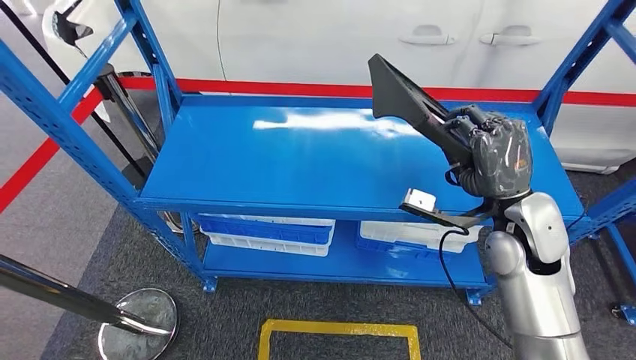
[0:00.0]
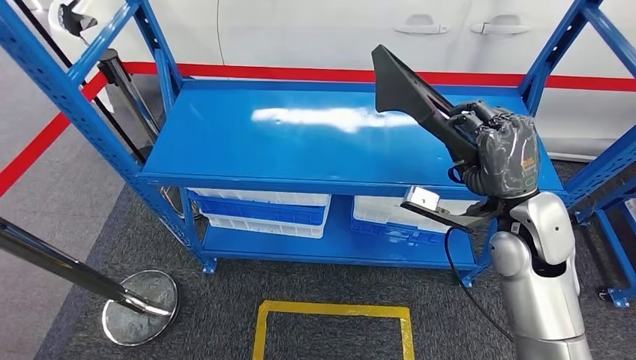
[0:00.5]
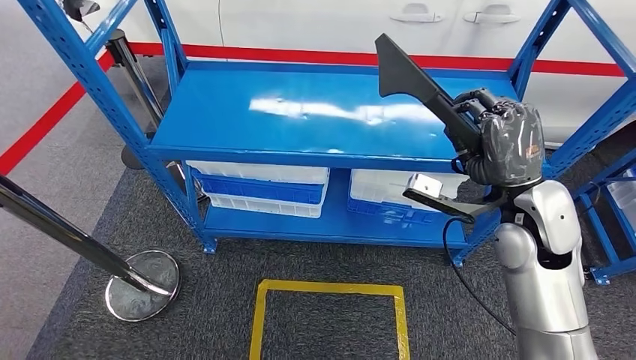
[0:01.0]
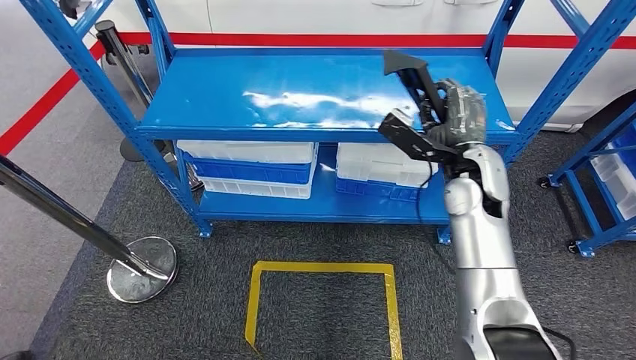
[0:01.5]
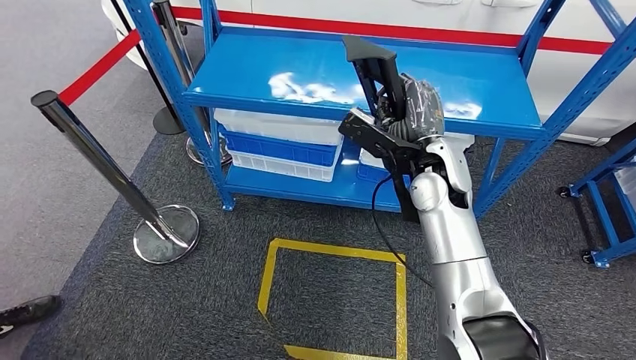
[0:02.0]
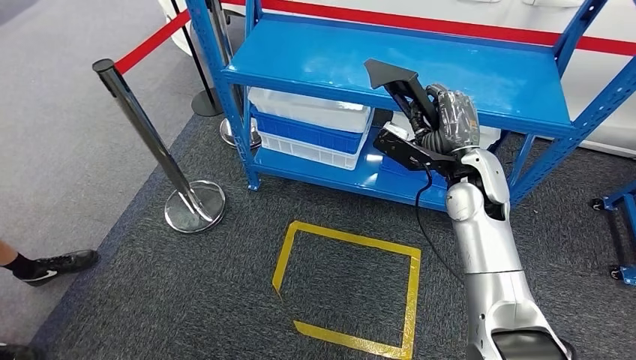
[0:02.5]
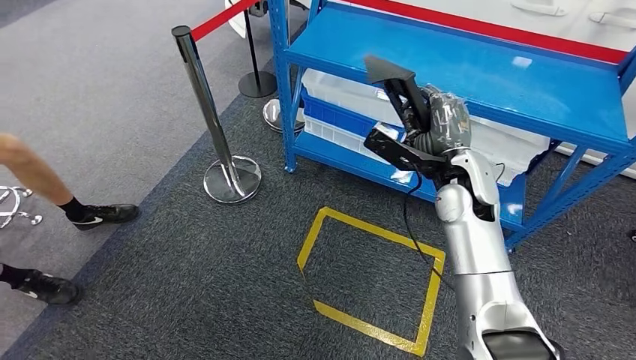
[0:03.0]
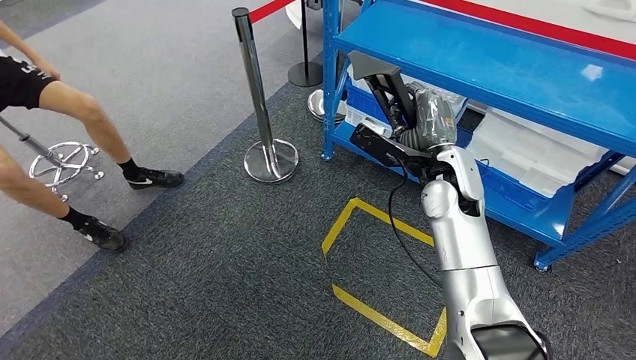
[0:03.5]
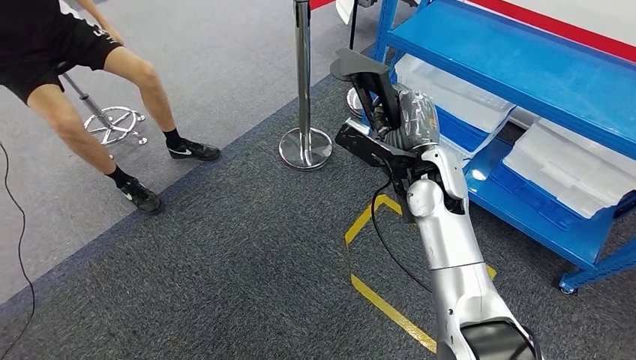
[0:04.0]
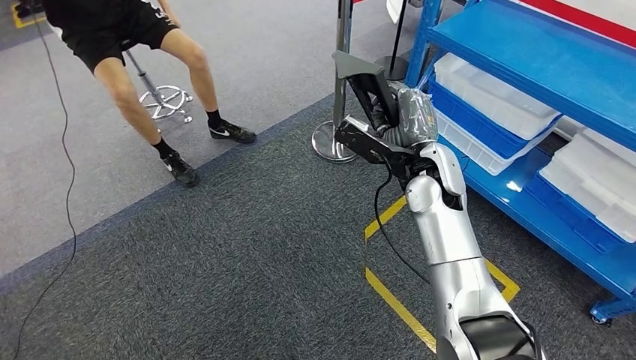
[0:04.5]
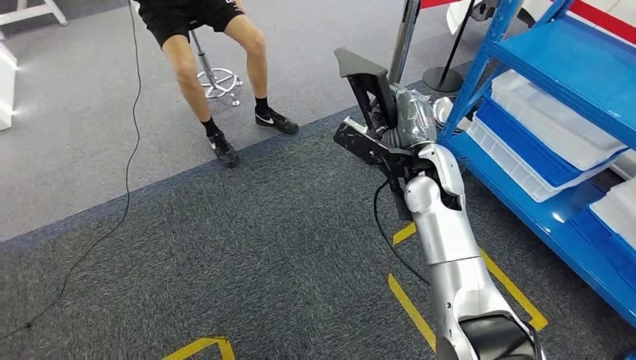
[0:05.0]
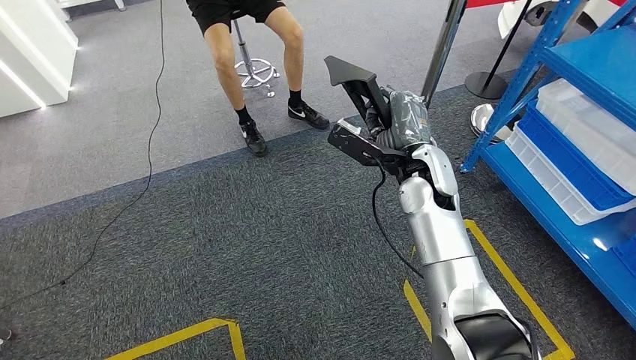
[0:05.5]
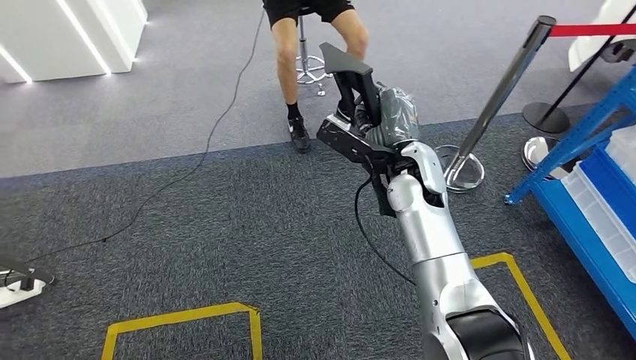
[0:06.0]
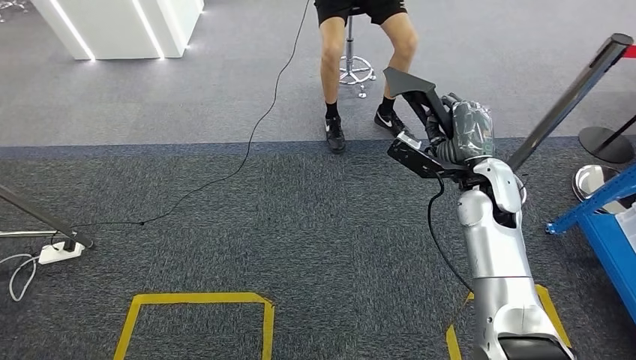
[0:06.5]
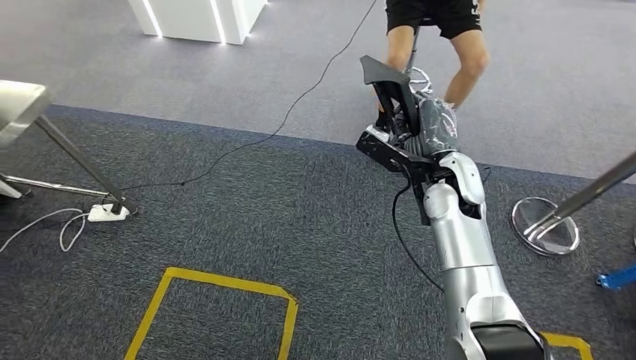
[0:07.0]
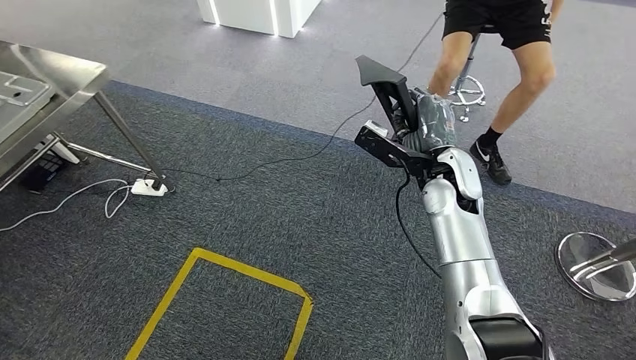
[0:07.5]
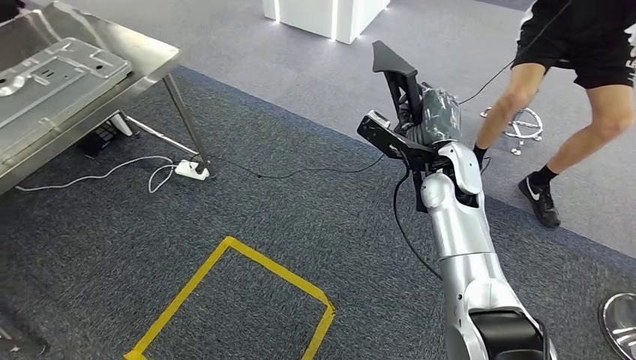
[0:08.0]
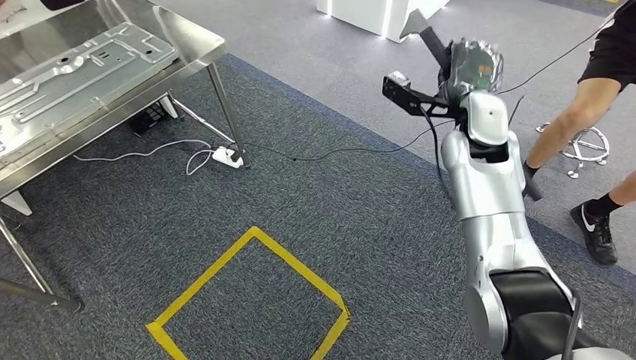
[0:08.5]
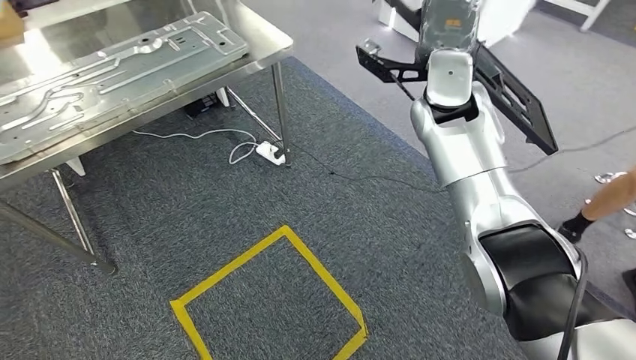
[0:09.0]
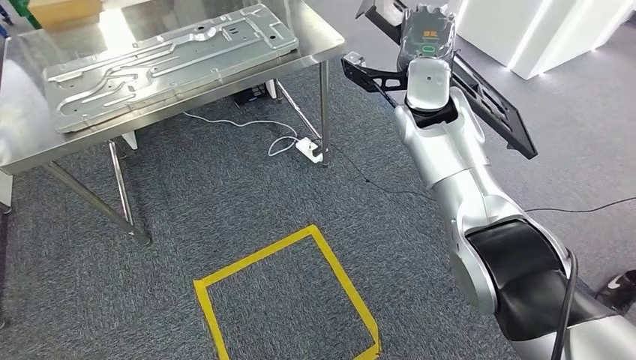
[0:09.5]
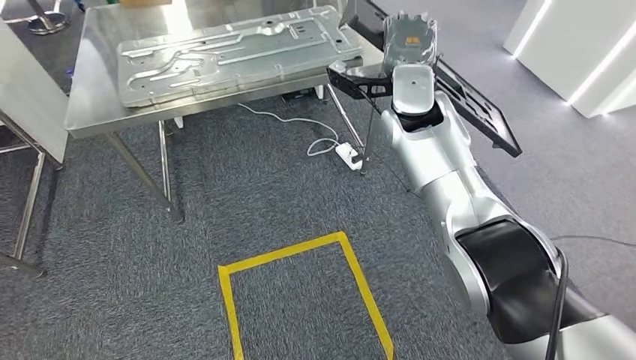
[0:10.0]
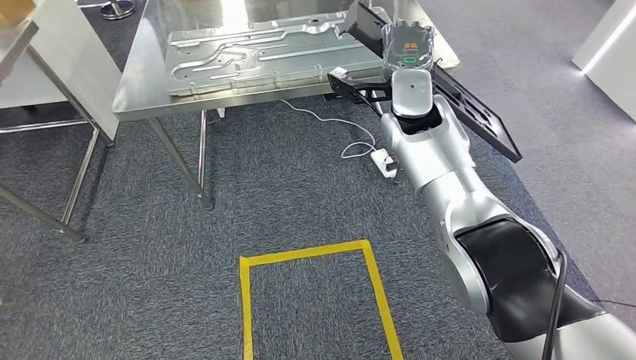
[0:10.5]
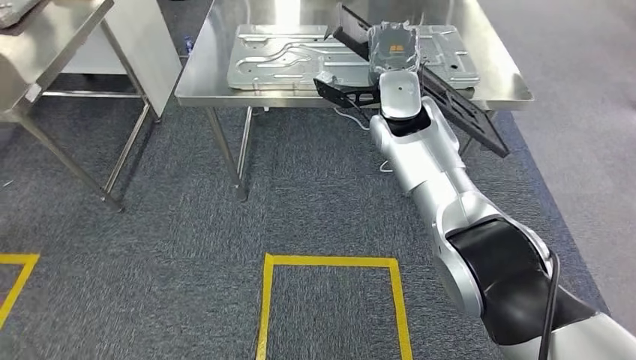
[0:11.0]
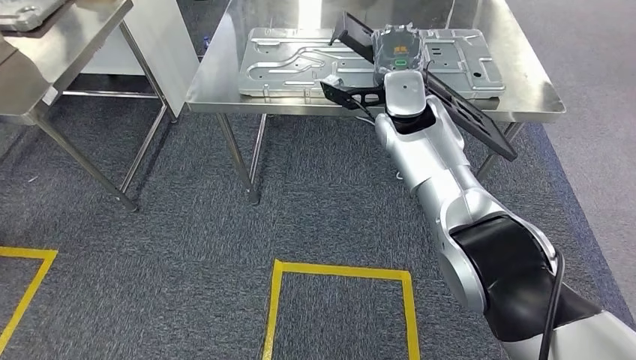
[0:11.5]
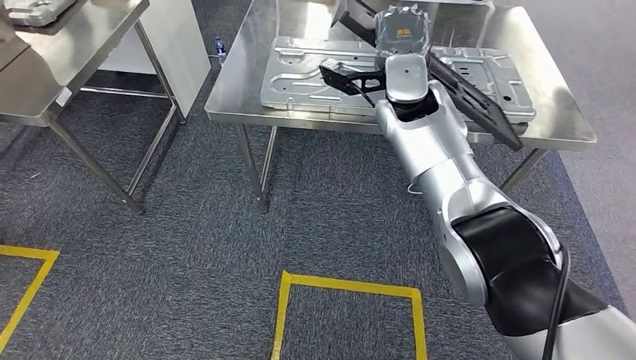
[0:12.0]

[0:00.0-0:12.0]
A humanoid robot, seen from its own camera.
Step, 0:00.0 to 0:02.0: Pick up the large material from the shelf.
Step, 0:03.0 to 0:11.5: Move the large material to the workbench.

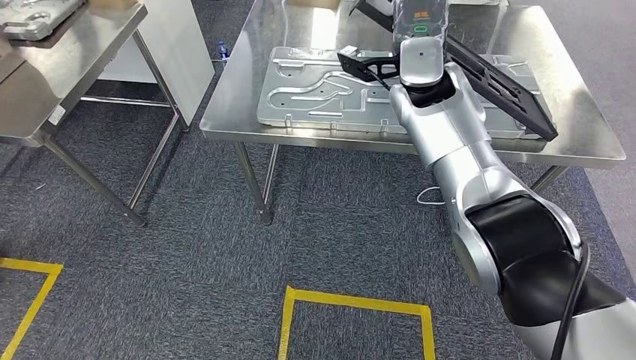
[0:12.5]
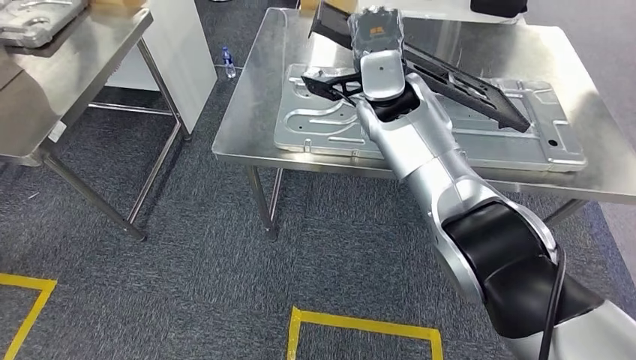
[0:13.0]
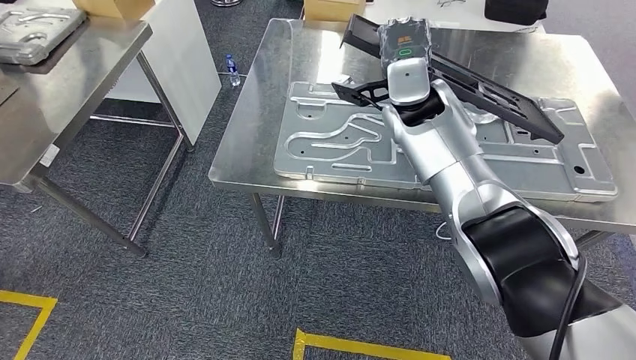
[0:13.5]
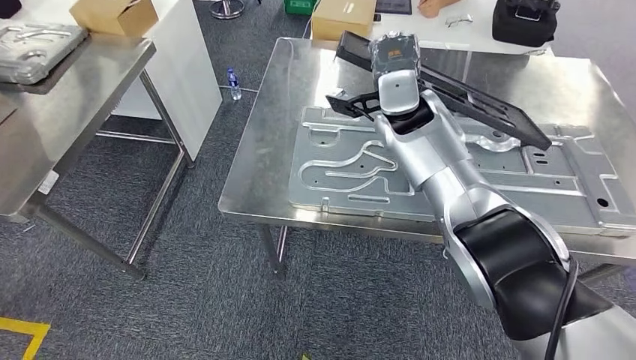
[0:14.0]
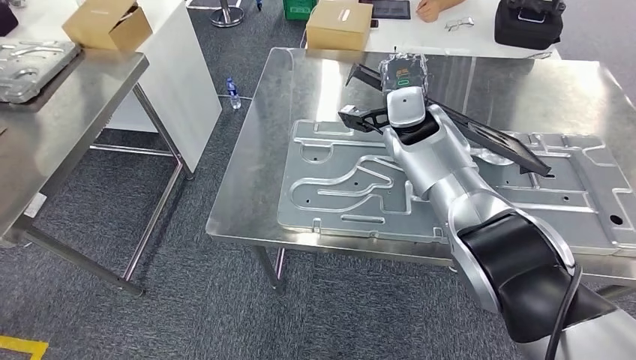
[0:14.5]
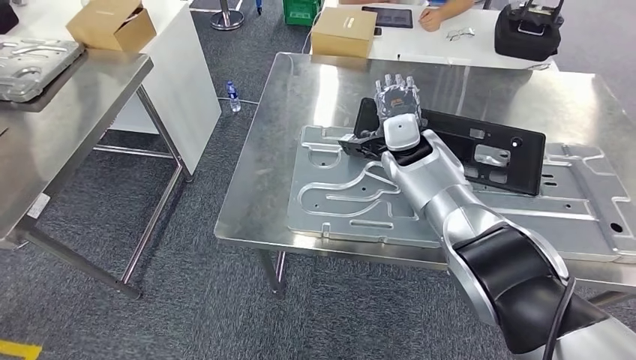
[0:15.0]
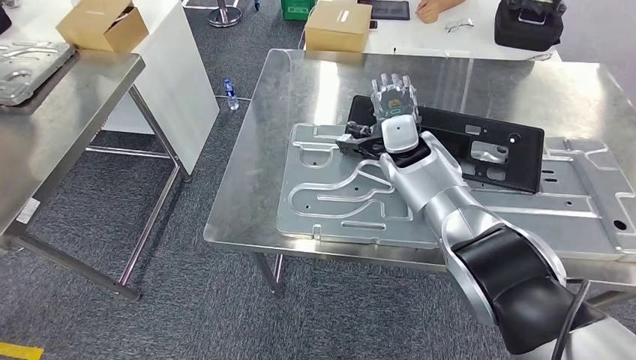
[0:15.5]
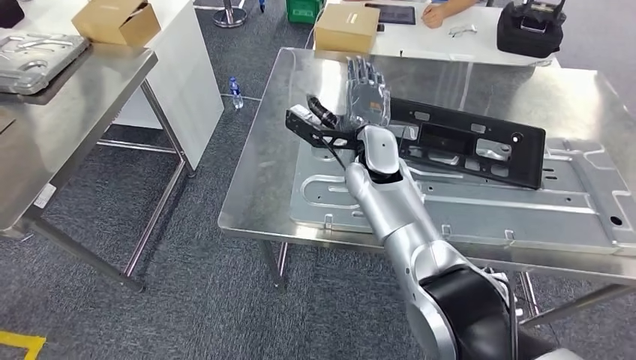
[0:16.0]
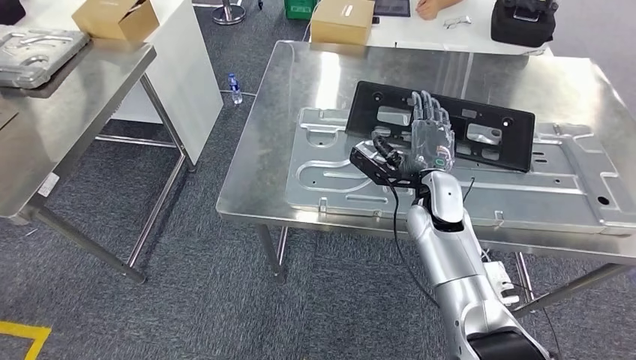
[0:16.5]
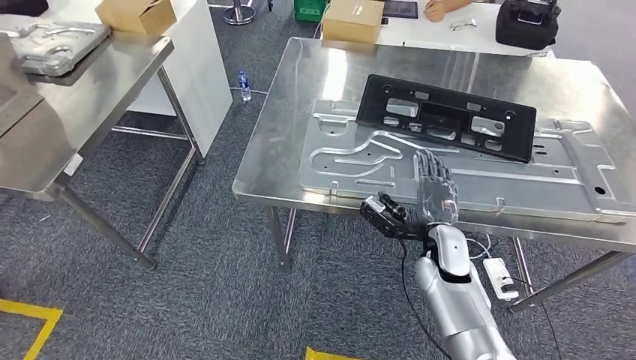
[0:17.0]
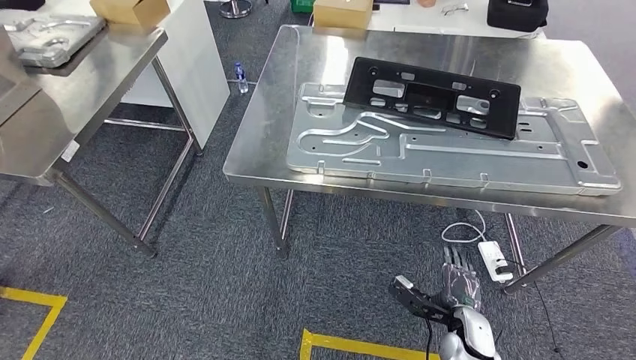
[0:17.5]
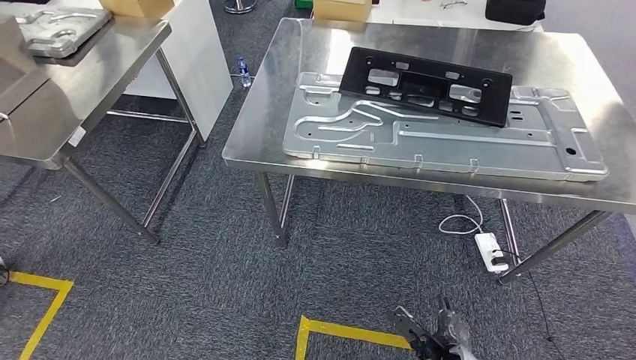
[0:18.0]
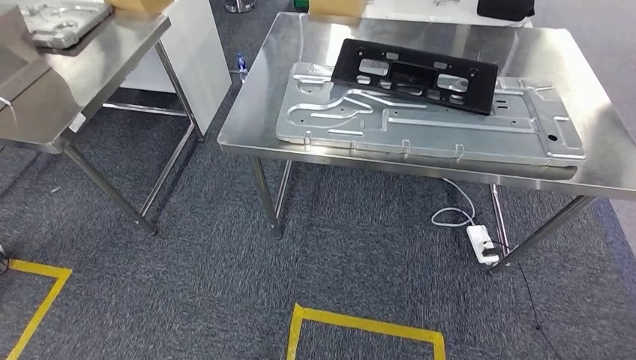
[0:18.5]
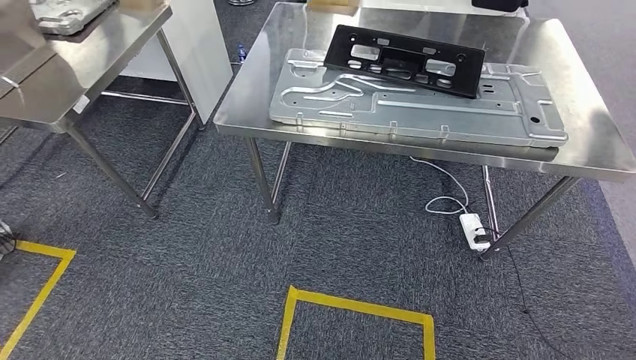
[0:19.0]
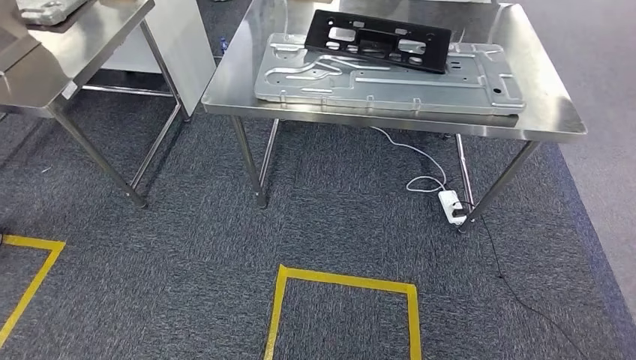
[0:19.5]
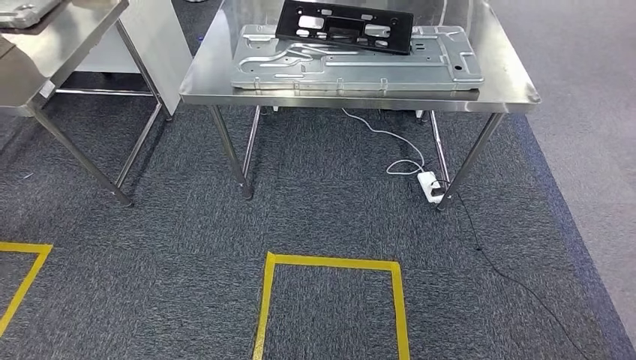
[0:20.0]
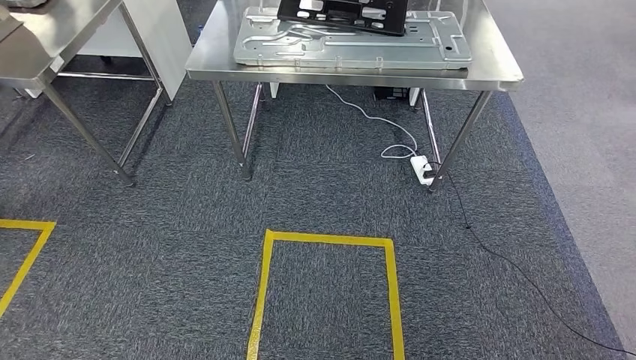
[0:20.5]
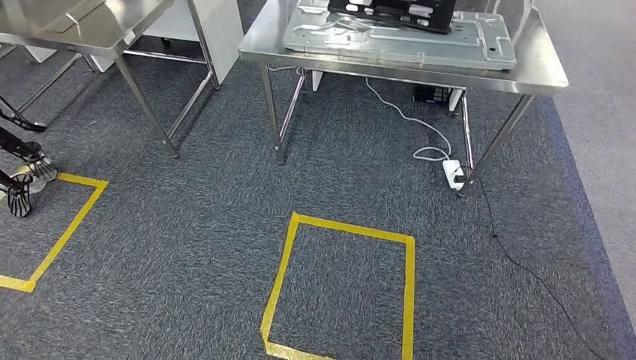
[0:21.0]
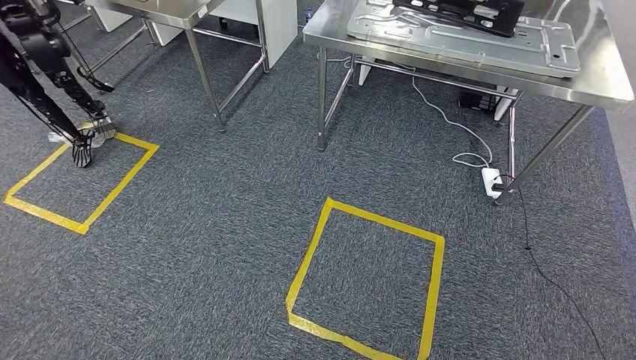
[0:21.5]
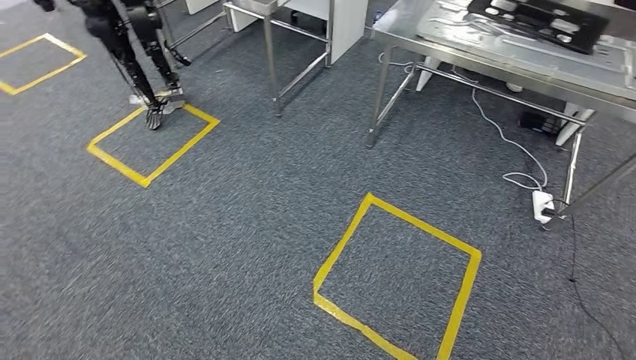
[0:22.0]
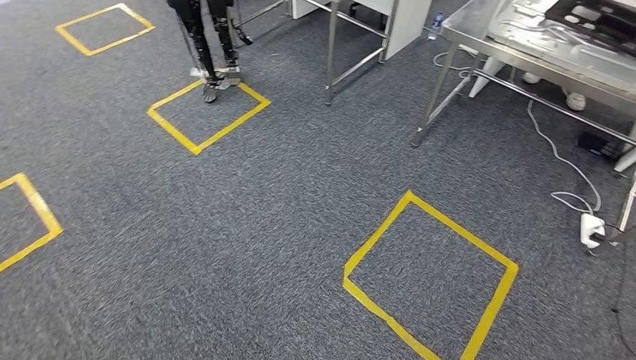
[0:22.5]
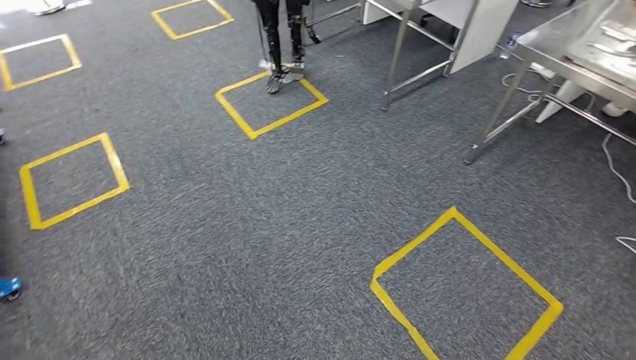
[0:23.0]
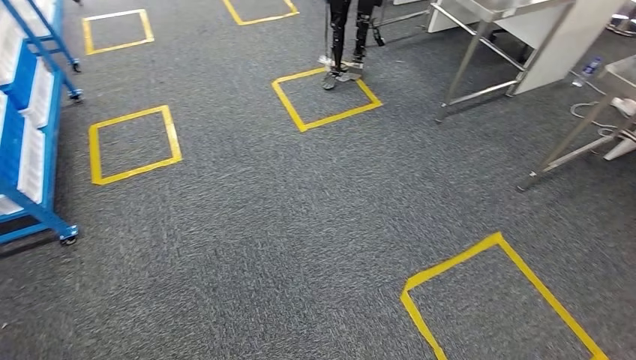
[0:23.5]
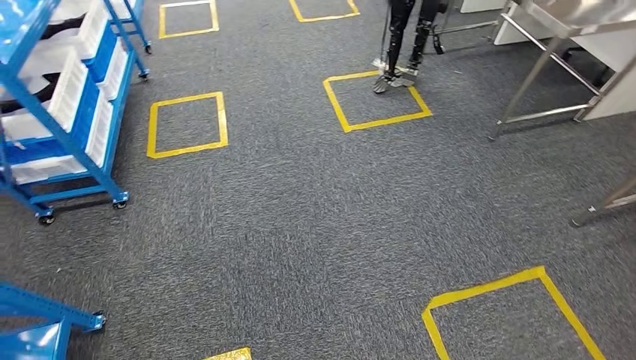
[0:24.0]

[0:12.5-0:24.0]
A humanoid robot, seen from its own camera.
Step, 0:12.5 to 0:22.0: Insert the large material into the corresponding slot on the workbench.
